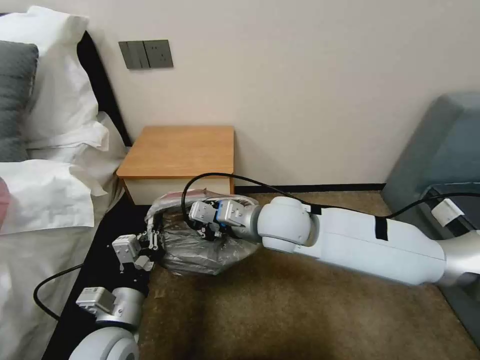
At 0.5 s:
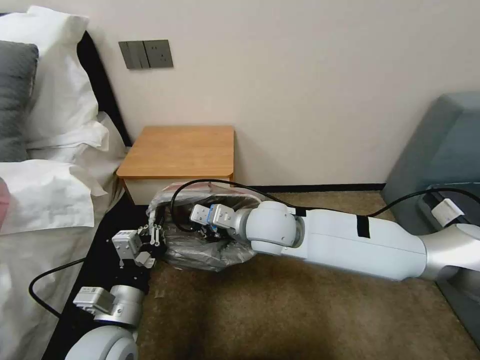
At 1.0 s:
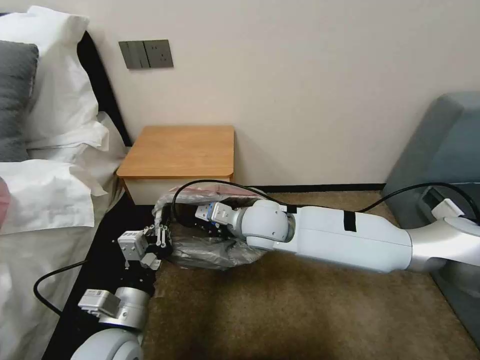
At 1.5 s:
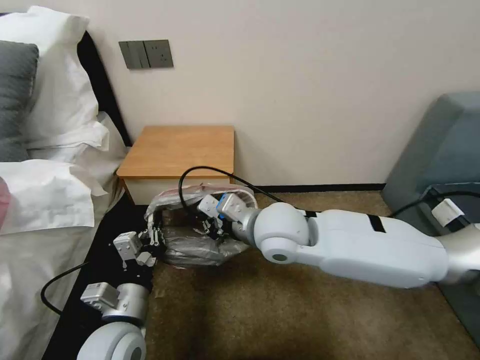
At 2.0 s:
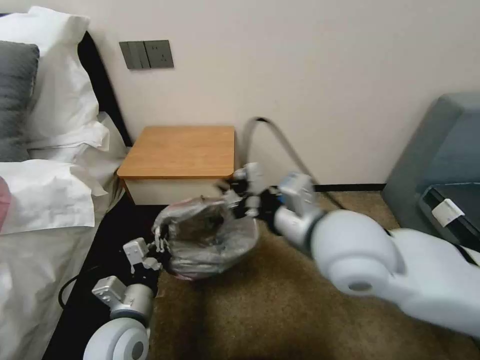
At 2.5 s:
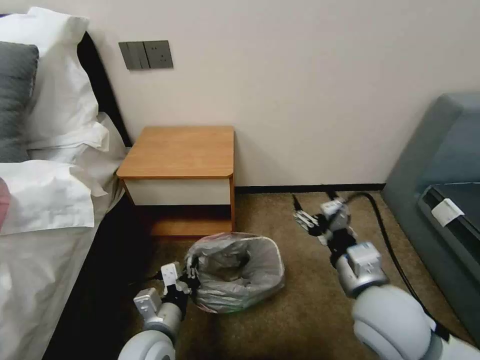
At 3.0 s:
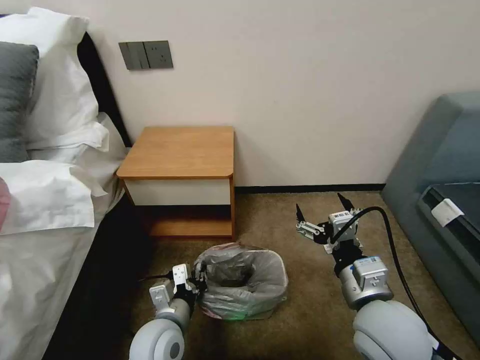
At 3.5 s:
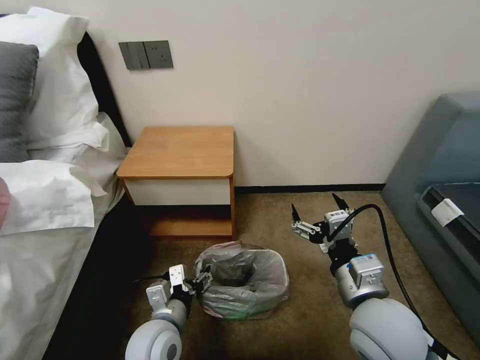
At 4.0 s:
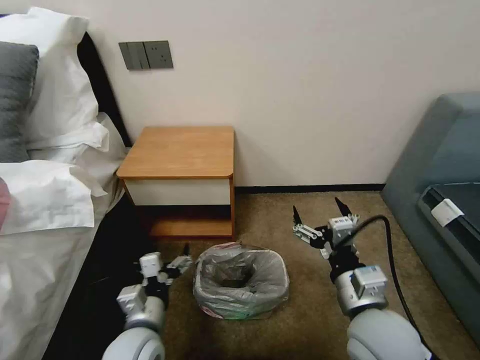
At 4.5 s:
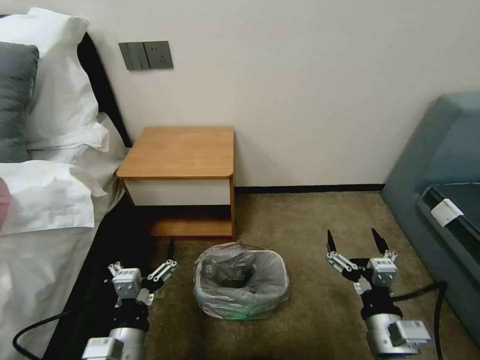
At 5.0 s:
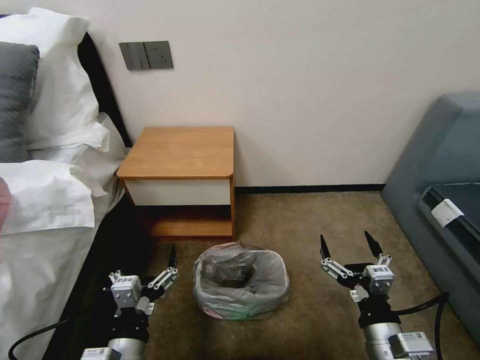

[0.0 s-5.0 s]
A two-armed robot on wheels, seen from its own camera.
Task of the whole recording: Pick up the garbage bag from the table and place it over the trash can.
0.0 to 2.5 s: The right gripper travels backward and to the right by about 20 cm, and opens its fingers; the left gripper travels downward by some 5 cm.
2.5 to 5.0 s: The left gripper moves backward, approximately 10 cm, and opens its fingers. Meanwhile the right gripper heads downward and backward, covering roughly 15 cm.

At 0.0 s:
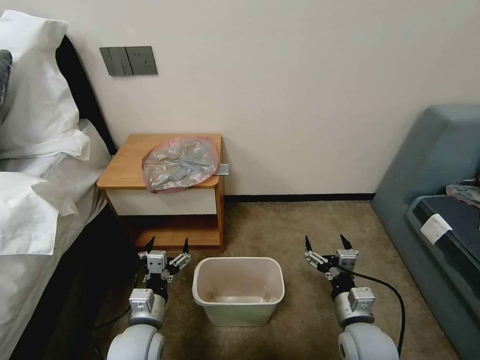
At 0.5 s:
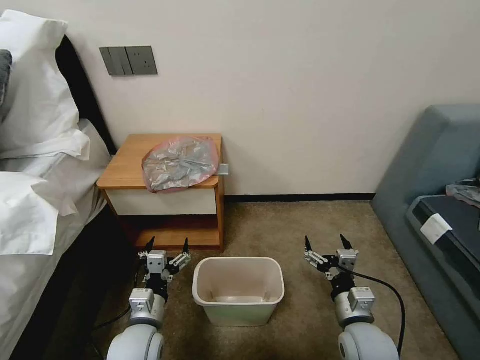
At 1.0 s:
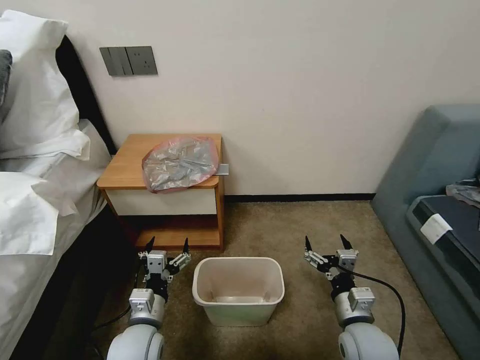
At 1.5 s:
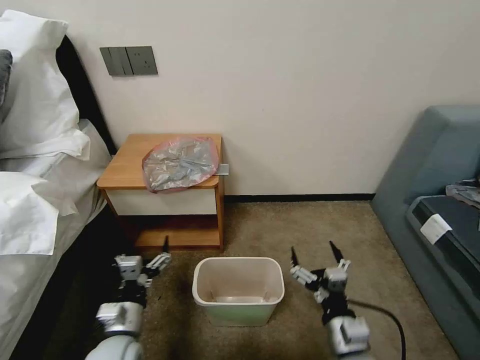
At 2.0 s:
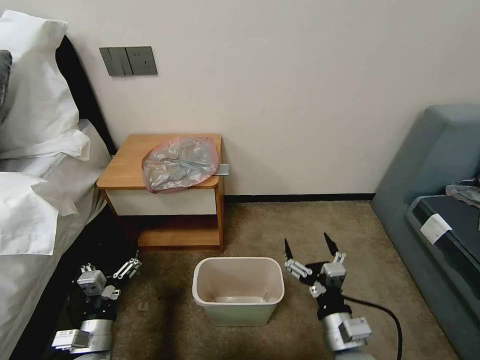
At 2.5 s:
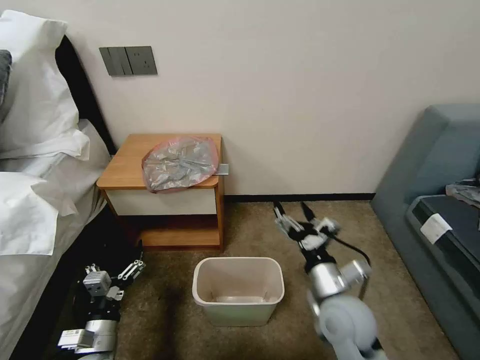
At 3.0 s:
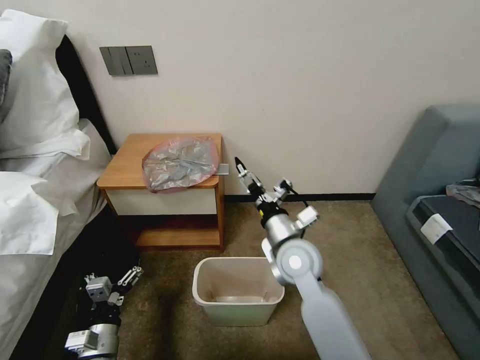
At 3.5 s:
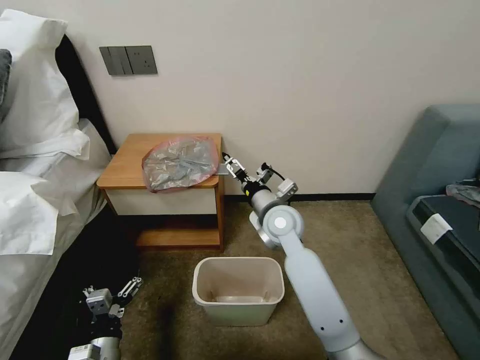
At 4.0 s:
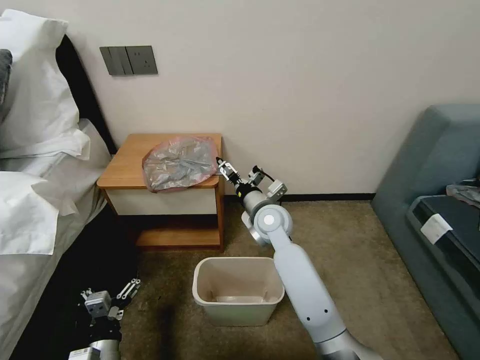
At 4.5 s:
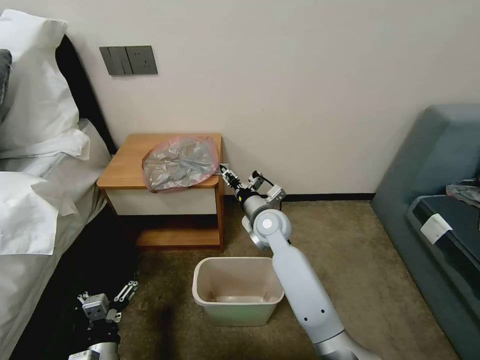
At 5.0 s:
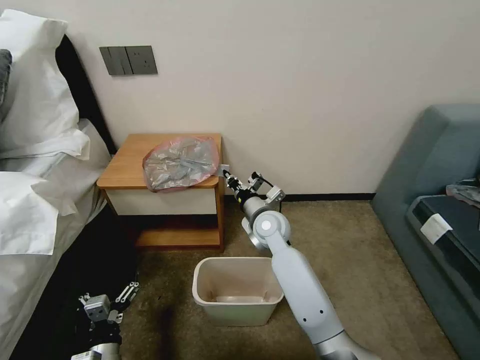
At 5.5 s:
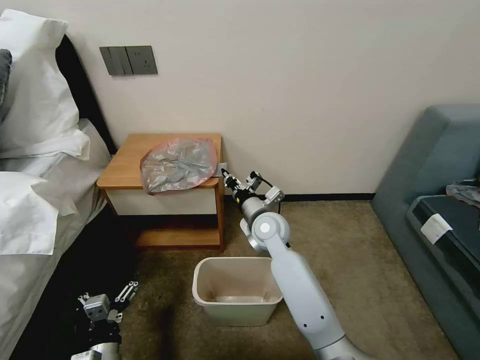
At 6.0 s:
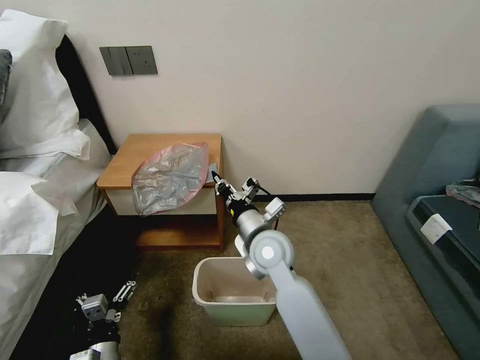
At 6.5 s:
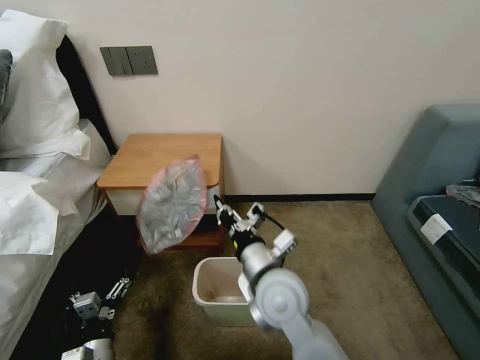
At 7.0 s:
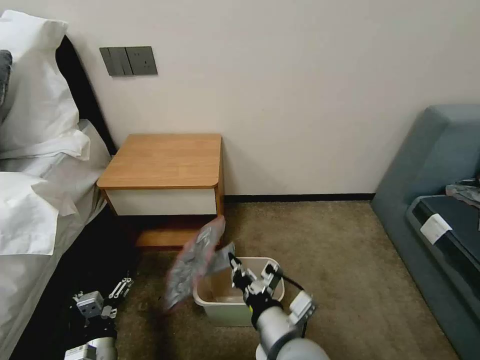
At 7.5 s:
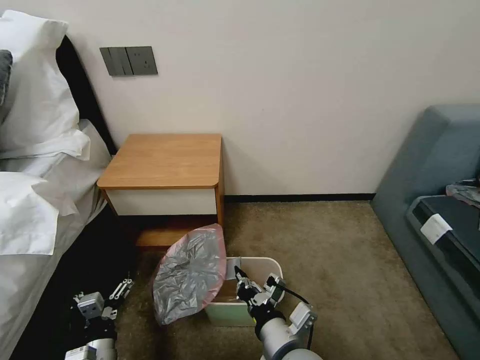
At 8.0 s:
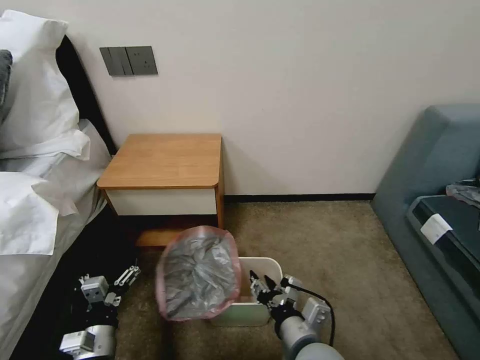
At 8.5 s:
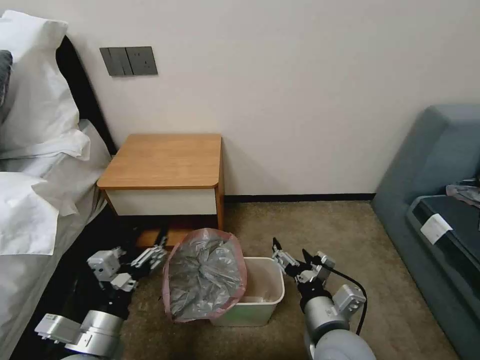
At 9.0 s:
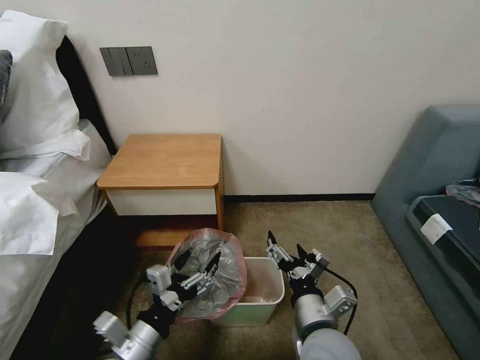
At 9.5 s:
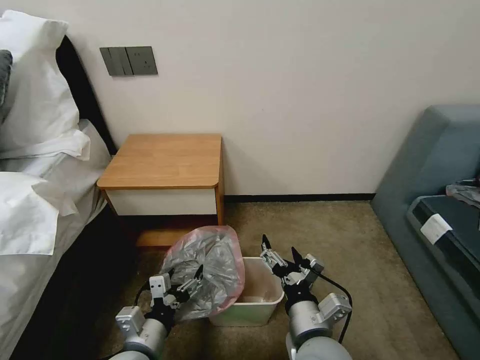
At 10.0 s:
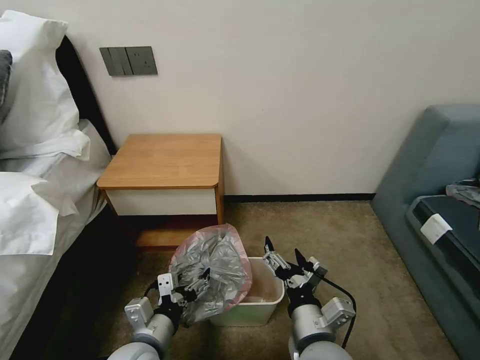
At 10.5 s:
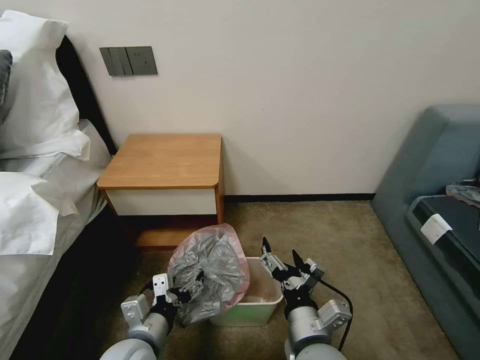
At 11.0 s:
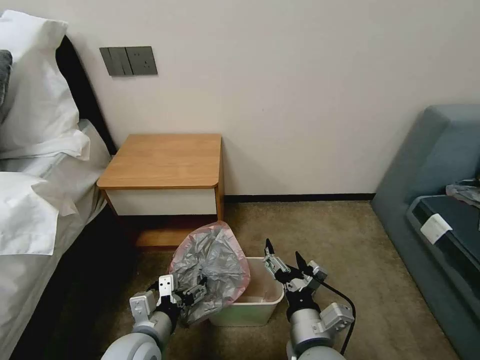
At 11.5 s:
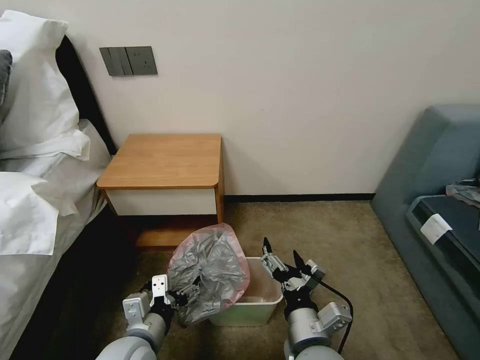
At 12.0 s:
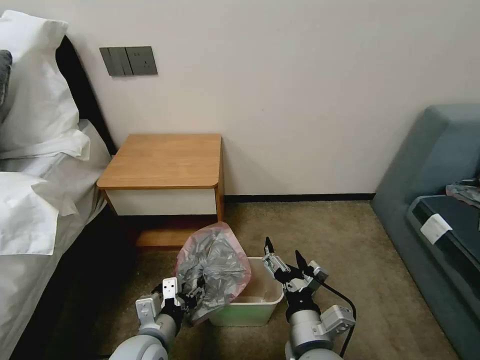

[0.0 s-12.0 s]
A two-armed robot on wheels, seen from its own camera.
Task of the whole recording: Pick up the garbage bag from the table and place it over the trash can.
2.0 to 4.0 s: The right gripper heads forward and to the left, covering some 30 cm.
4.0 to 6.0 s: The right gripper shifts roughly 10 cm backward, and closes up.
6.0 to 8.0 s: The right gripper heads backward, covering some 20 cm, and opens its fingers.
8.0 to 10.0 s: The right gripper opens up. Meanwhile the left gripper heads to the right and upward, covering roughly 10 cm.
10.0 to 12.0 s: There are only small adjustments of the grippers.

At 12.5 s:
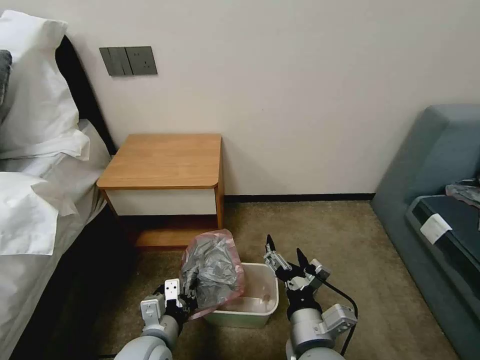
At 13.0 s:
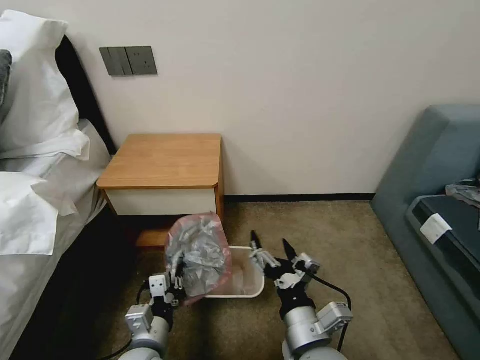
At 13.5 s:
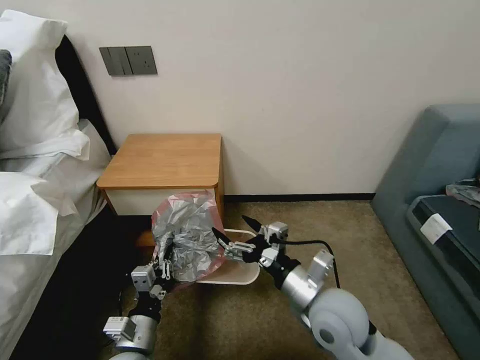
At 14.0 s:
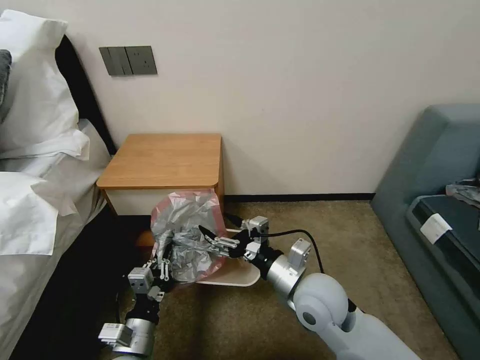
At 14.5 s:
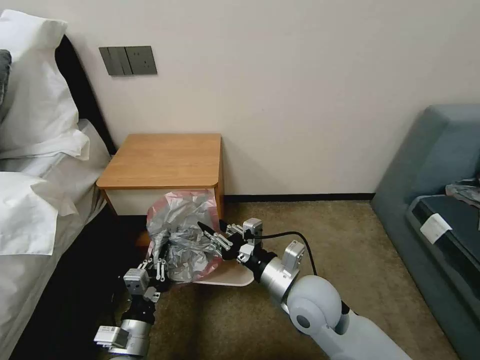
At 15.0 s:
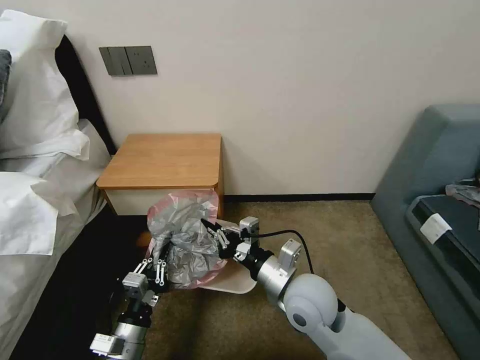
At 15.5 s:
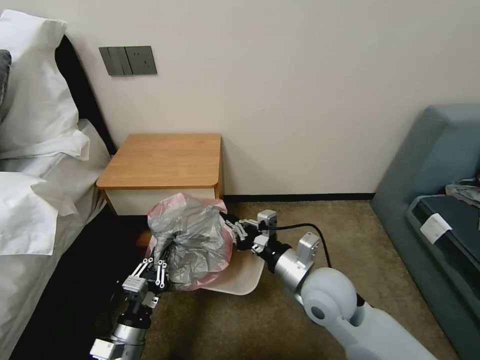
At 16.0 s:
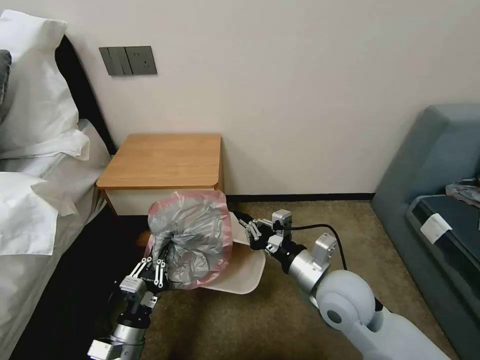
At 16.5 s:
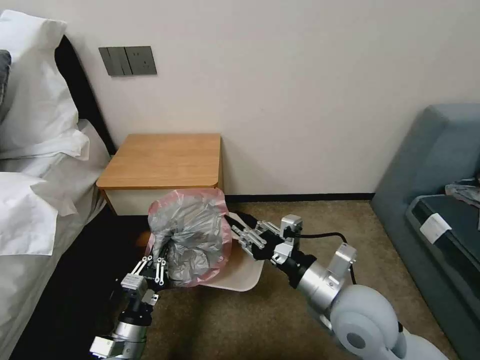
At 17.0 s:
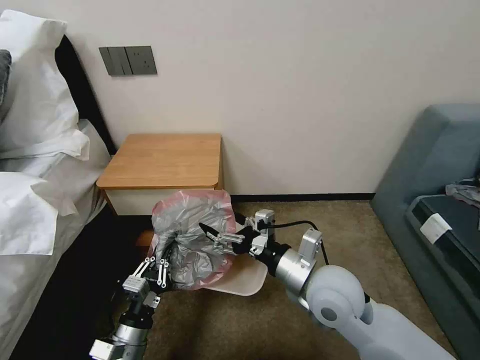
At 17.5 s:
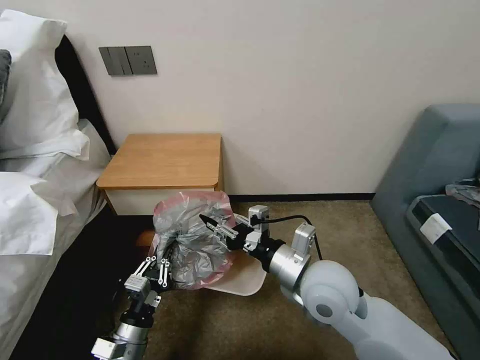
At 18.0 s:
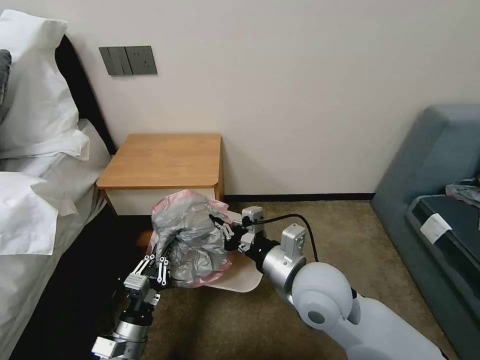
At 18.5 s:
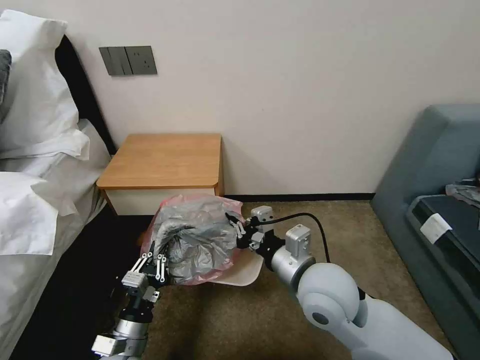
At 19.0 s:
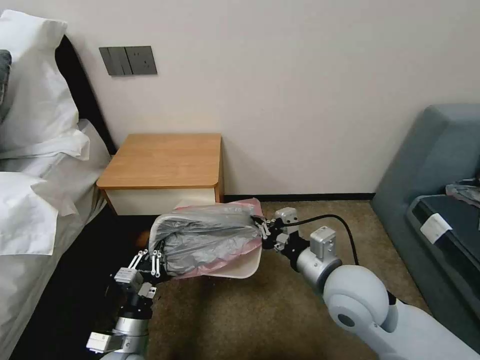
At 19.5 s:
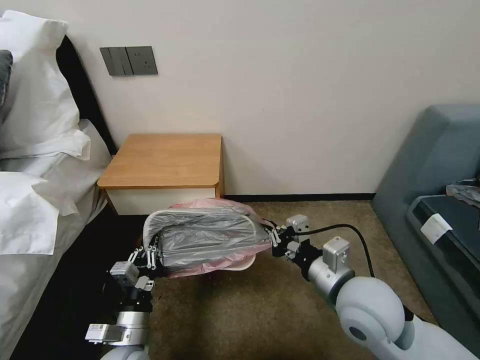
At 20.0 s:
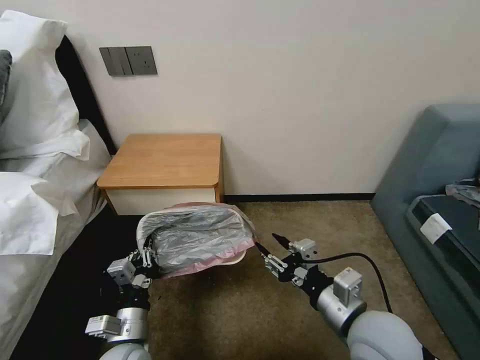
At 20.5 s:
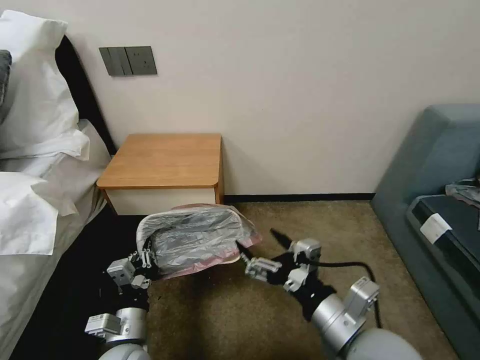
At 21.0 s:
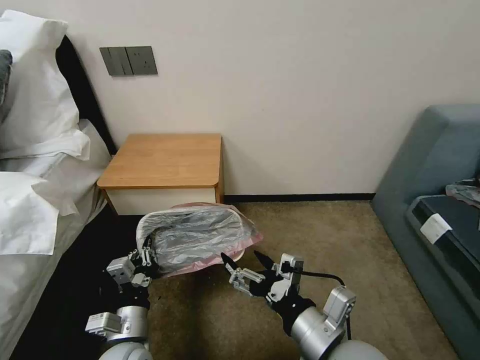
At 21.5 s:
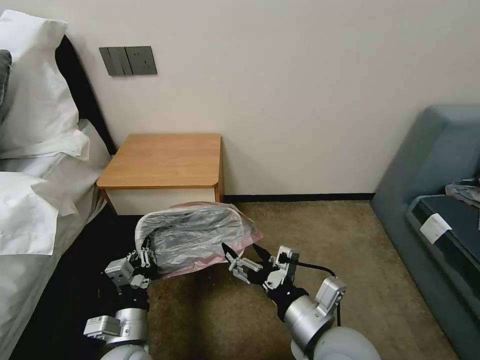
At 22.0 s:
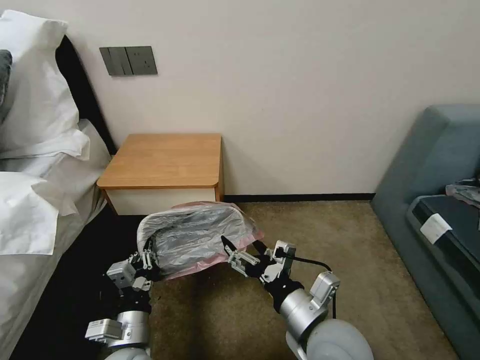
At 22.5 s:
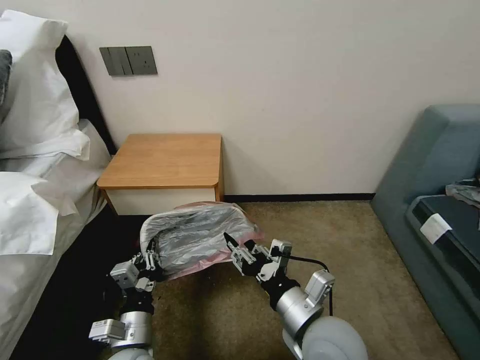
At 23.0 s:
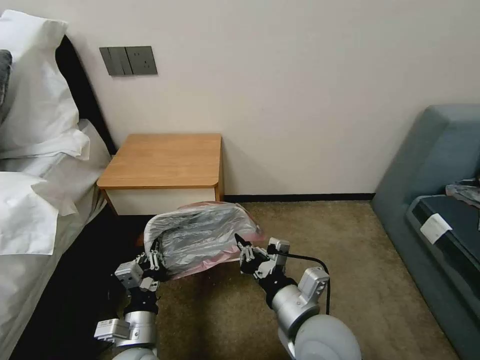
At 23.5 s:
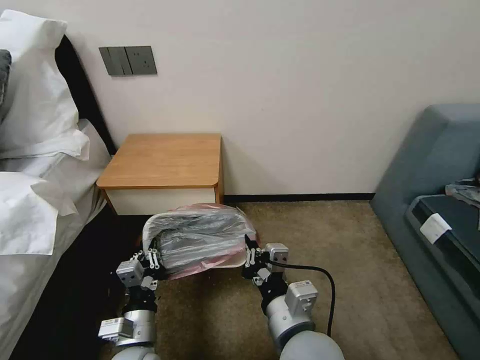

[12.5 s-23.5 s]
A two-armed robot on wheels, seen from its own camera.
Task of the whole recording: Pick up the garbage bag from the table and place it over the trash can.
12.5 to 14.5 s: The left gripper shifts by some 5 cm, while the right gripper is displaced forward by approximately 10 cm, and closes.
14.5 to 16.0 s: The right gripper heads to the right, covering about 5 cm.
16.0 to 18.0 s: The right gripper is displaced to the left by some 5 cm, and opens and closes again.
18.0 to 20.0 s: The right gripper heads to the right and backward, covering about 10 cm, and opens its fingers.
20.0 to 21.5 s: The right gripper heads to the left, covering roughly 5 cm, and opens.
21.5 to 23.5 s: The right gripper travels to the left by some 5 cm, and closes up.
